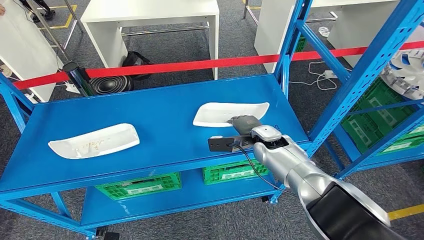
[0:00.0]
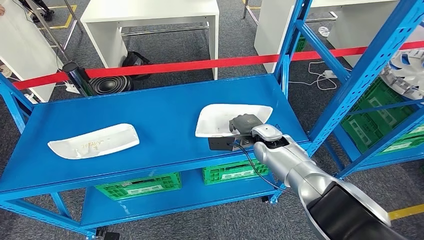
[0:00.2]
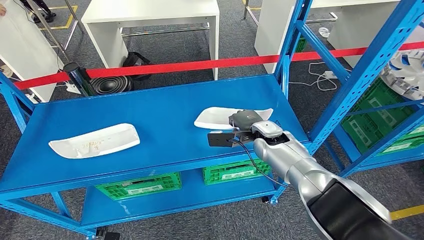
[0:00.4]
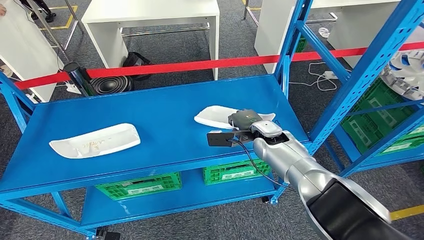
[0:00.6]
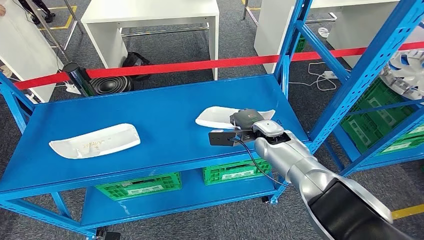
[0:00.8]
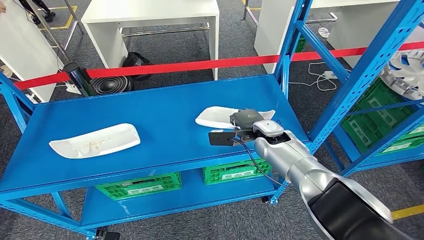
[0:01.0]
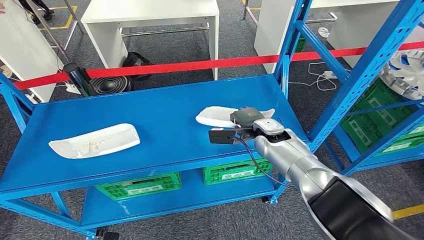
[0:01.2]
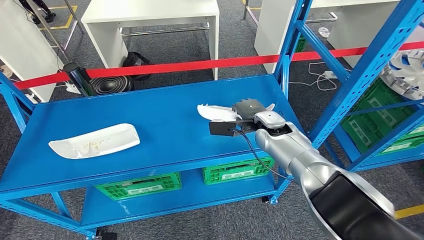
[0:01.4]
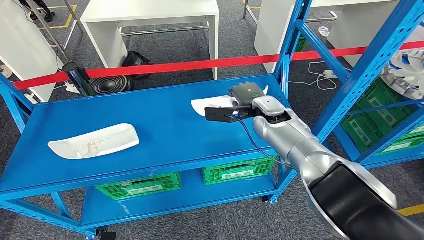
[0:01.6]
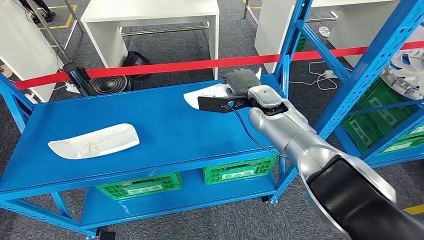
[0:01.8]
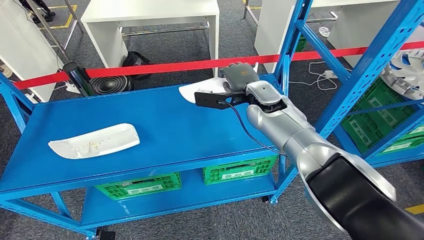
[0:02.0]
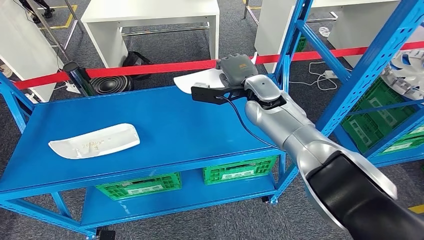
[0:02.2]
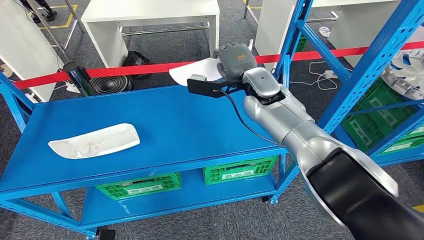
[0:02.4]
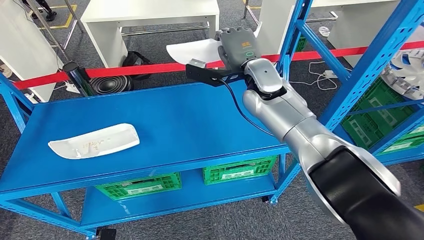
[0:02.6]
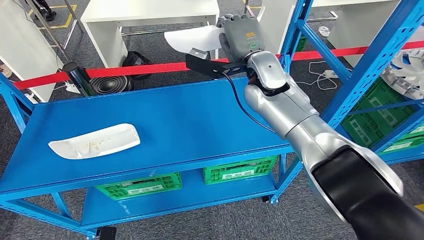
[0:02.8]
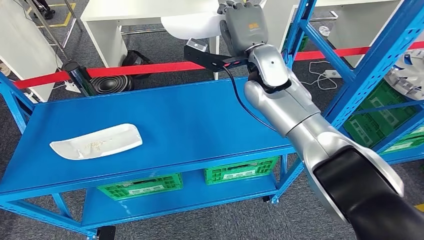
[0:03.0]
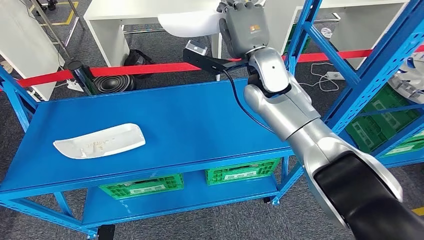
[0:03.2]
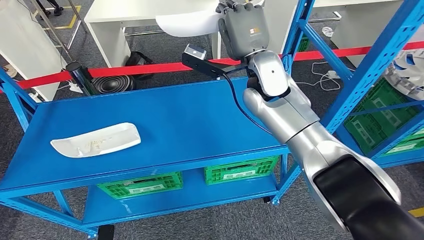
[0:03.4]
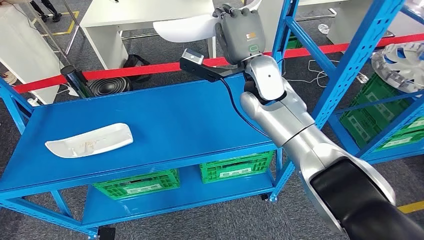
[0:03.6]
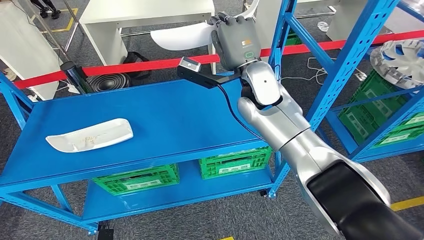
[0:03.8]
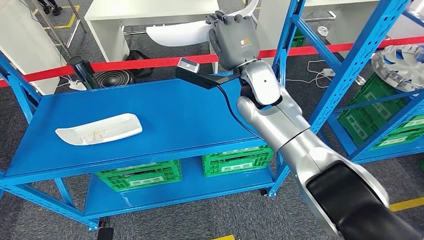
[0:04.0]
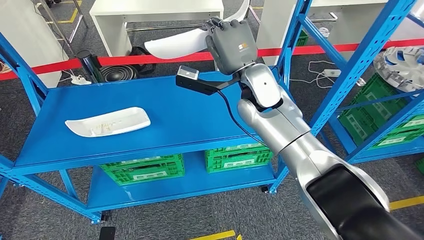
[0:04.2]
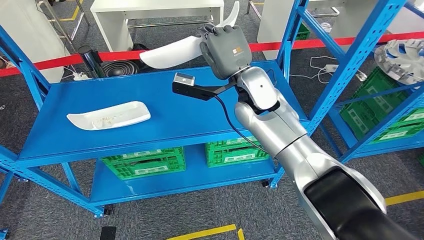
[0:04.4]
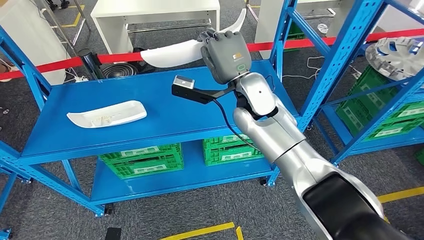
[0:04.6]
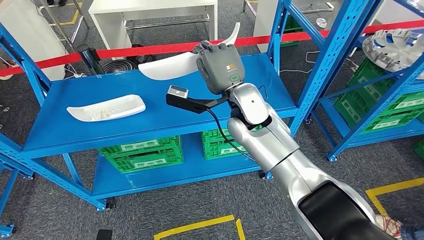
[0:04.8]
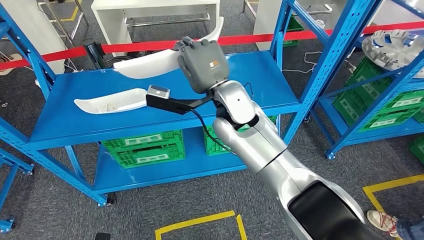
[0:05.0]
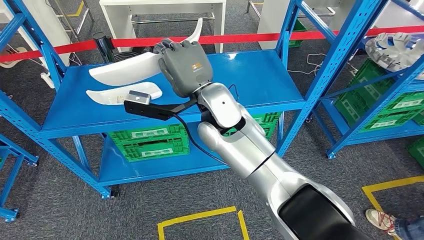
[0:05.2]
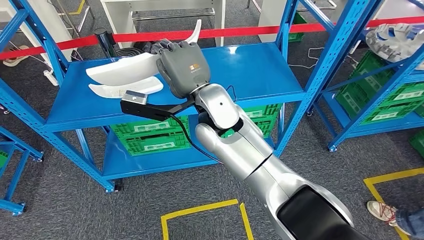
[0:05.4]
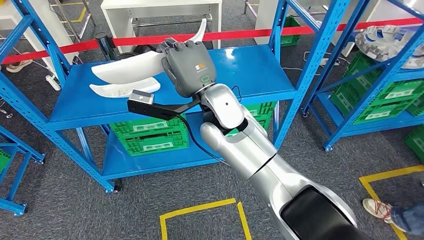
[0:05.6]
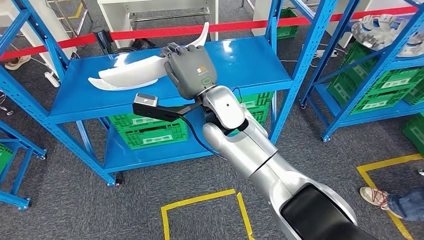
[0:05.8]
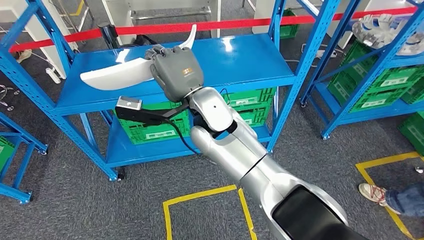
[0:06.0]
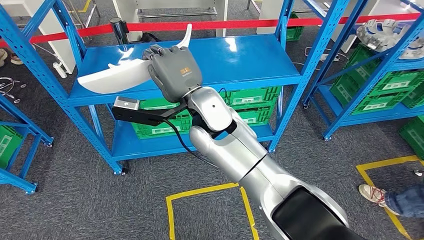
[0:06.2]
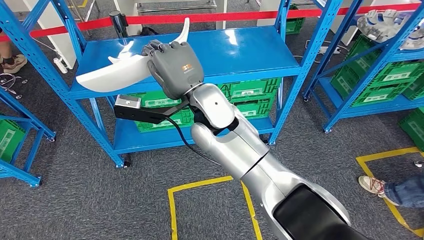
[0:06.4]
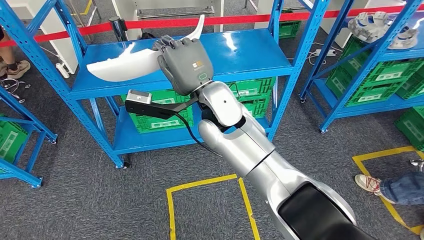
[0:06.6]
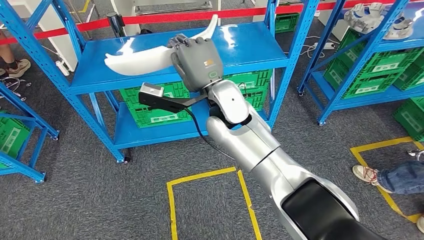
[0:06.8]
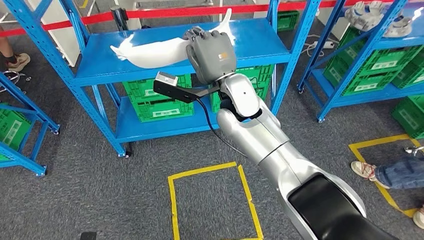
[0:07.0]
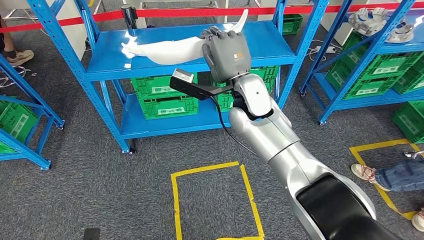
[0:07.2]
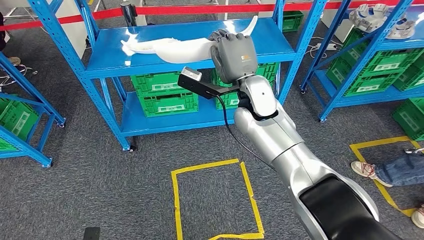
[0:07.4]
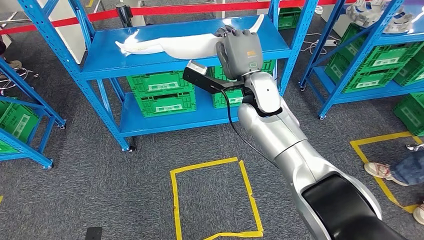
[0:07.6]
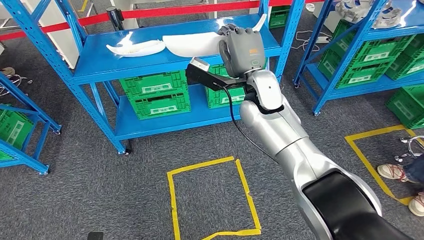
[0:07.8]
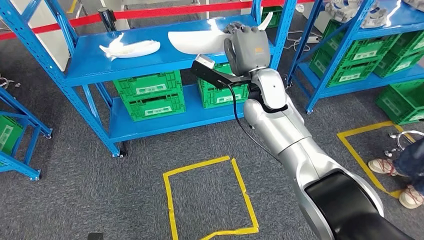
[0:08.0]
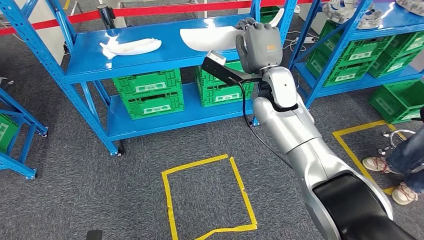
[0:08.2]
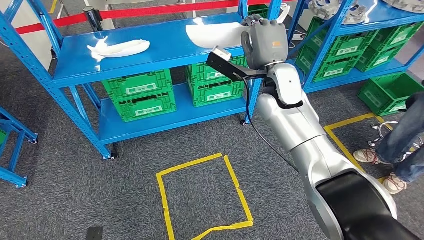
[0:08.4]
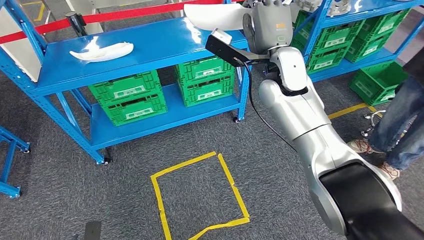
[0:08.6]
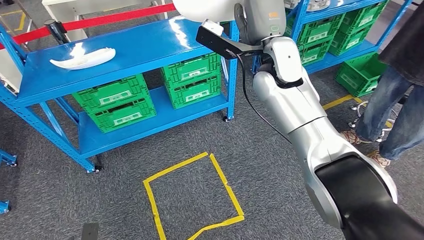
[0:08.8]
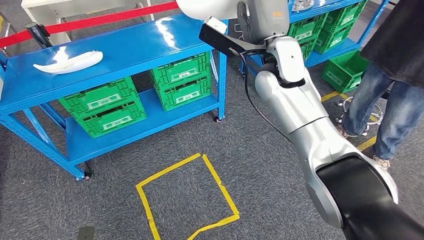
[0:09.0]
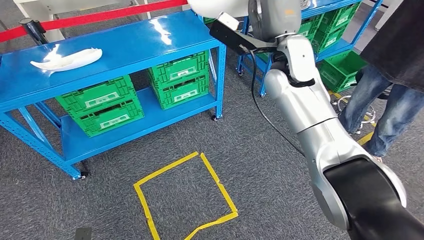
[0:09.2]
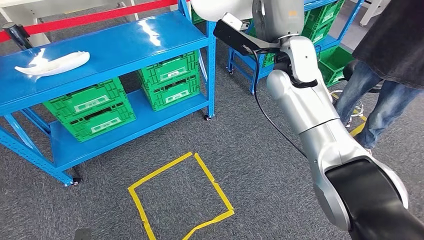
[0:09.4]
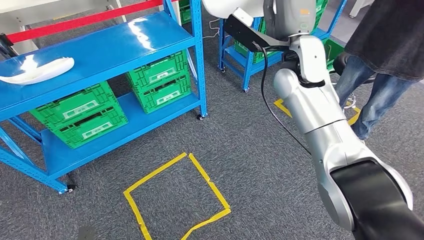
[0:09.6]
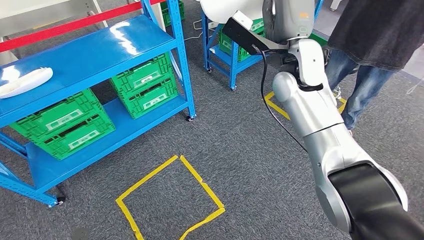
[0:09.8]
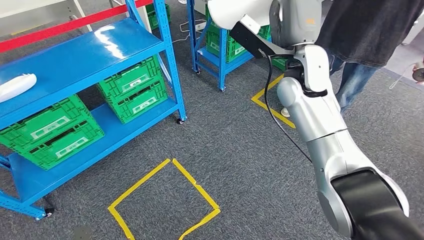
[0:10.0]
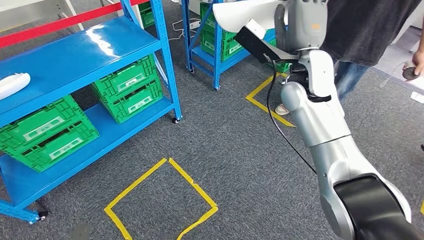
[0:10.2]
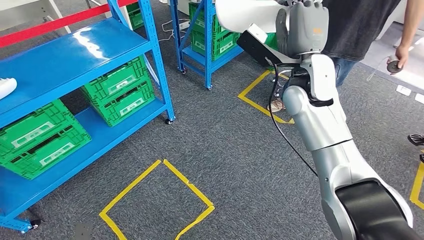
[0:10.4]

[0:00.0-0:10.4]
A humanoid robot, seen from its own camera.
0:00.0 to 0:01.4: The hands stay close to where they were, moving slightly.

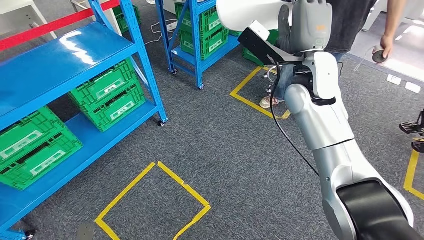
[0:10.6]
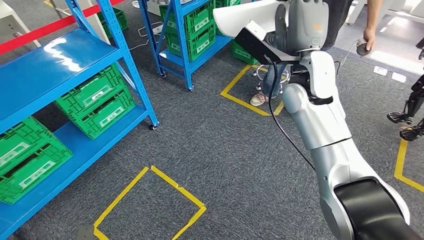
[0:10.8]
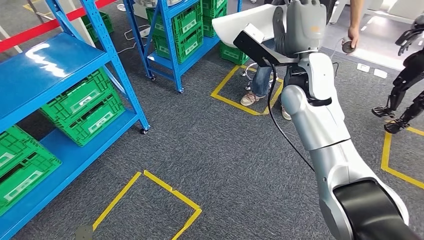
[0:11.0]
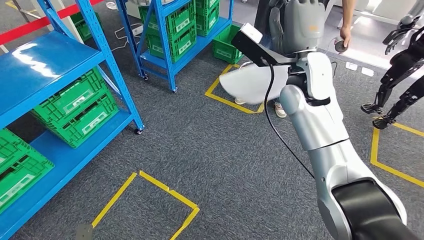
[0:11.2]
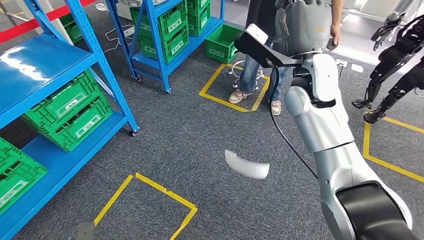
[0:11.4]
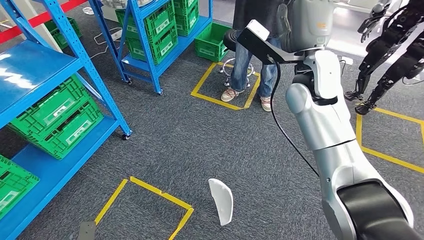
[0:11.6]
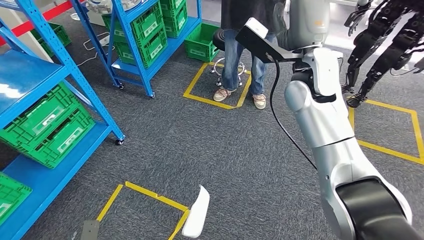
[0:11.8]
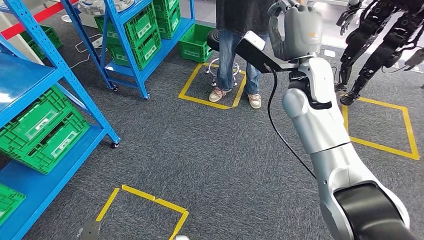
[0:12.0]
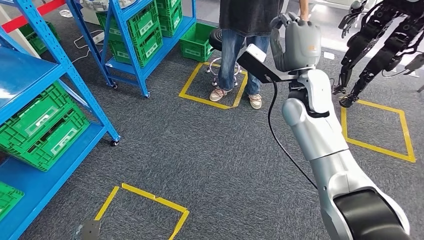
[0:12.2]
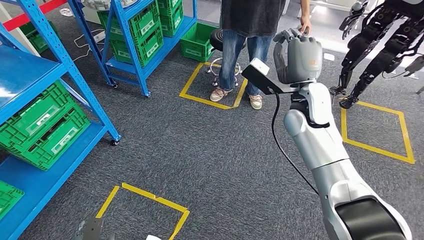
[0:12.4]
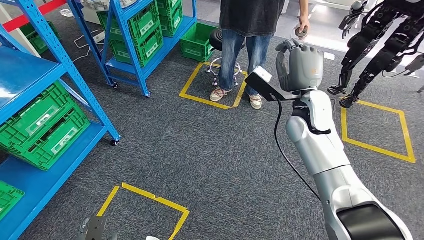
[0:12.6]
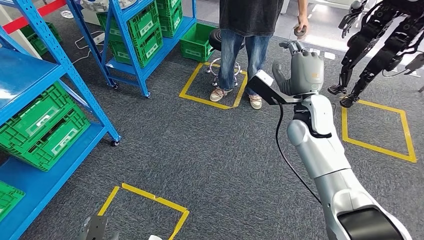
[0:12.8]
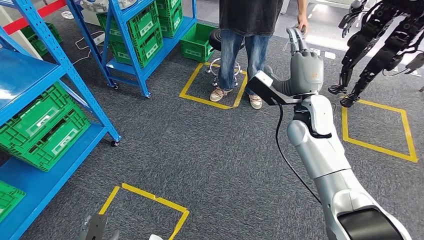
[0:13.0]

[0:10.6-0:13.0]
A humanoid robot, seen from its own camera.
Step, 0:10.6 to 0:13.0: Move the small parts to the workbench.

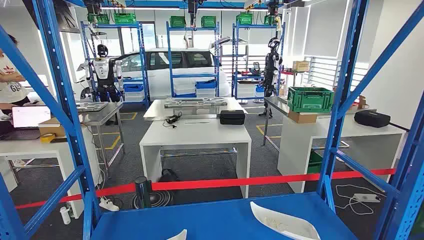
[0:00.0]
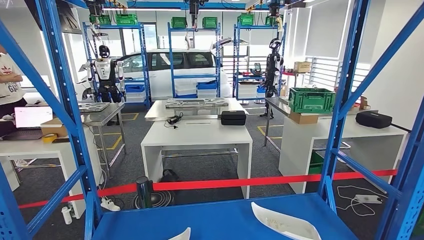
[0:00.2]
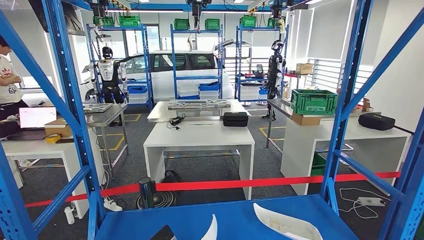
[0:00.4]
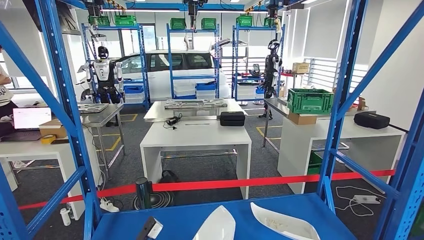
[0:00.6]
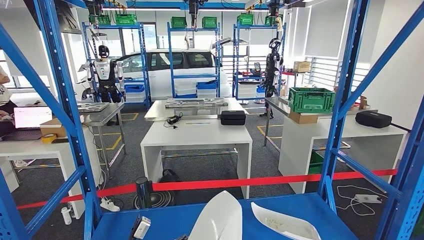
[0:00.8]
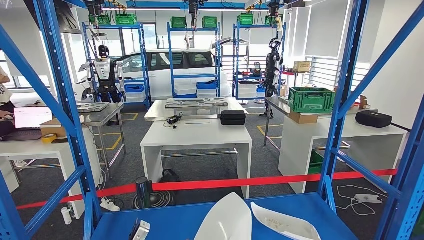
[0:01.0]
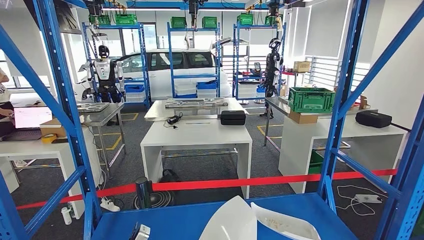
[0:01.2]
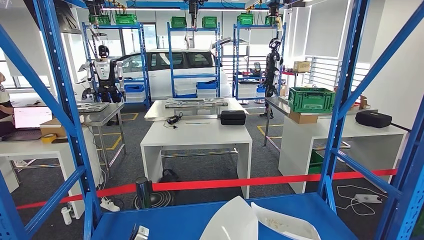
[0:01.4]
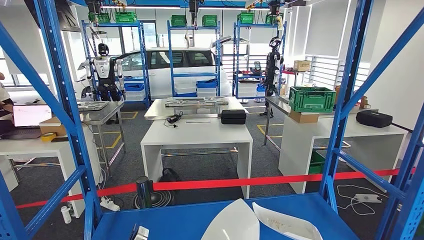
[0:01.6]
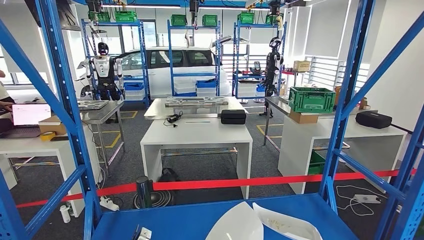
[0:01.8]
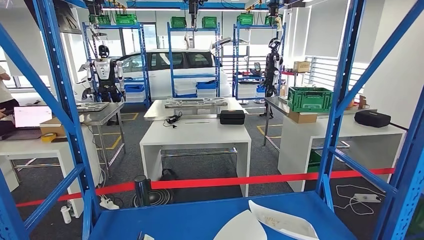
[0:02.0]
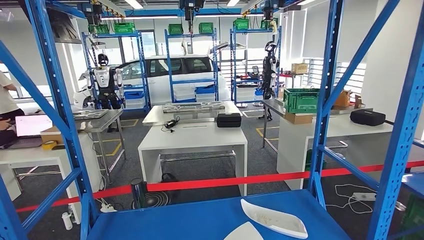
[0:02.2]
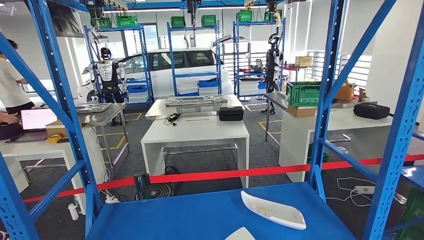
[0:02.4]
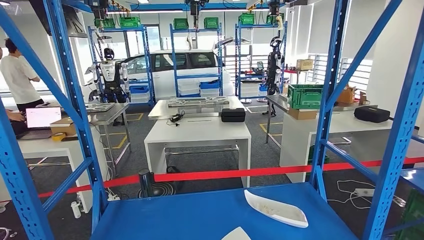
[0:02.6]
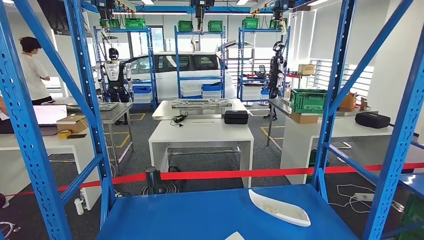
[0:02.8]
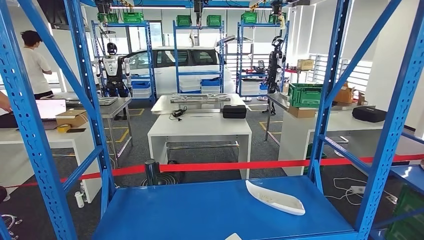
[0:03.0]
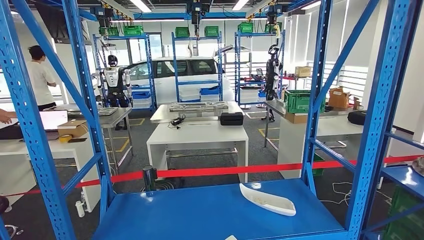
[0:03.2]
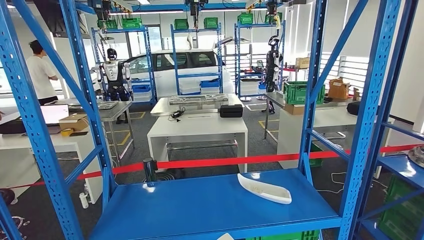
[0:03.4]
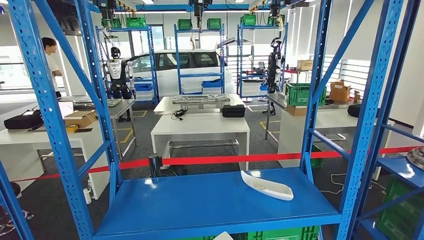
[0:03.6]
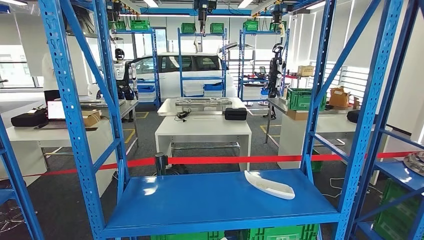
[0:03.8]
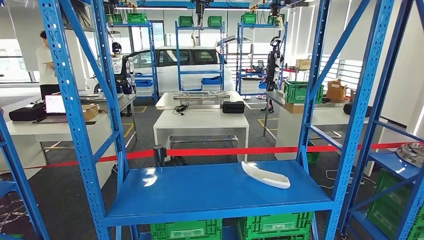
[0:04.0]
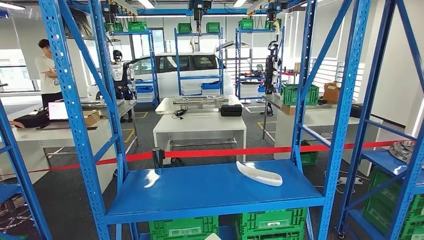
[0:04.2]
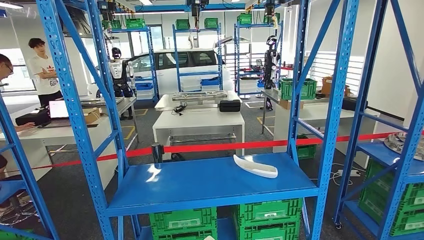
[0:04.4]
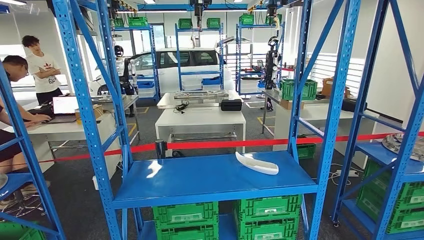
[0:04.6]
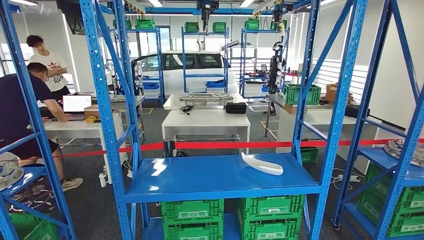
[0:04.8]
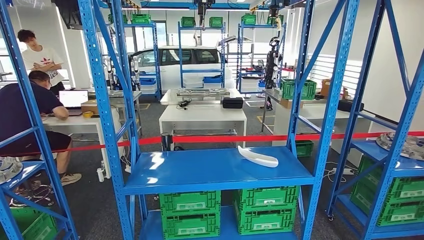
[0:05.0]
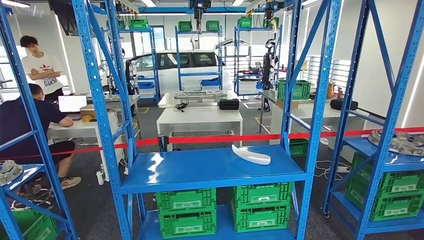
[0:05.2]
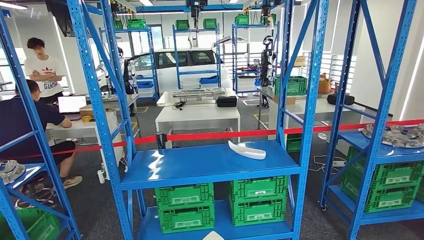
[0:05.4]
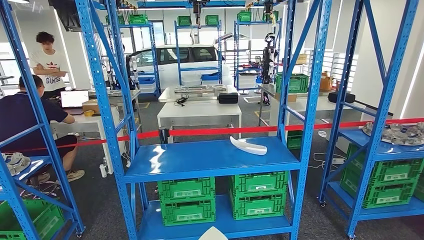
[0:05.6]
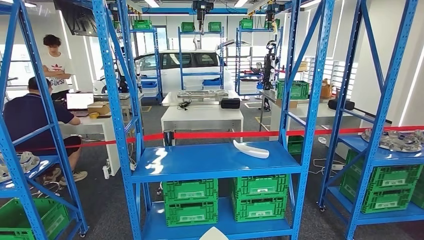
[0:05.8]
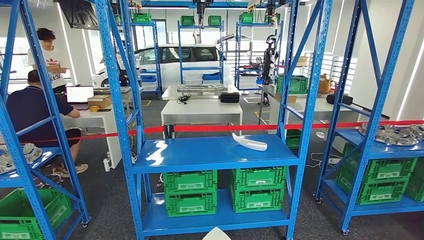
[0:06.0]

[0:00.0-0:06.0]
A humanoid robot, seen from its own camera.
Step, 0:00.0 to 0:03.6: Take small components from the rack.
